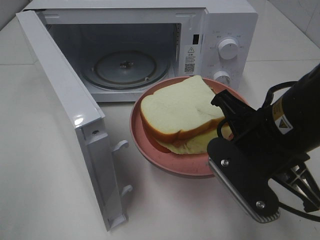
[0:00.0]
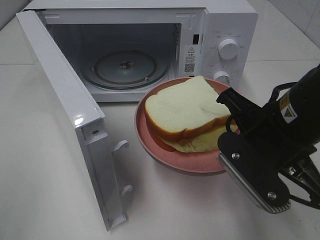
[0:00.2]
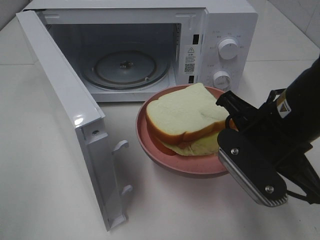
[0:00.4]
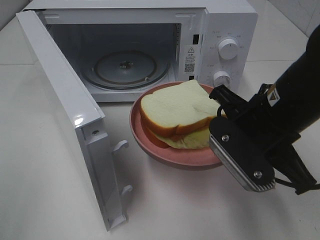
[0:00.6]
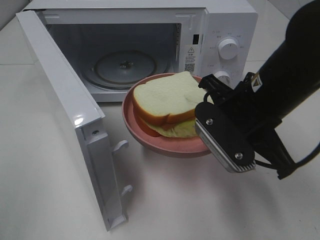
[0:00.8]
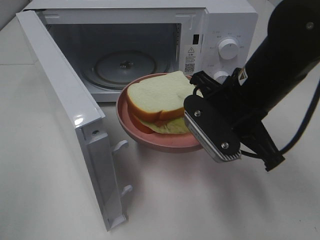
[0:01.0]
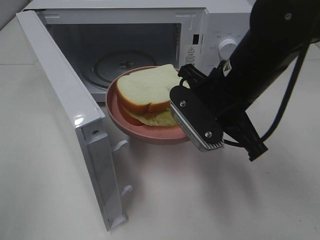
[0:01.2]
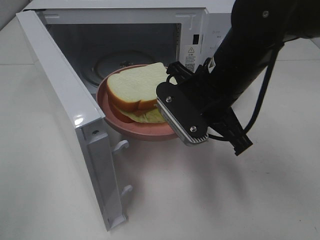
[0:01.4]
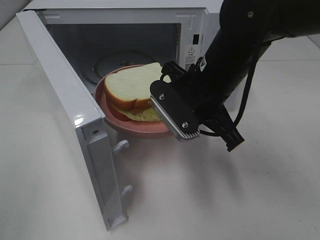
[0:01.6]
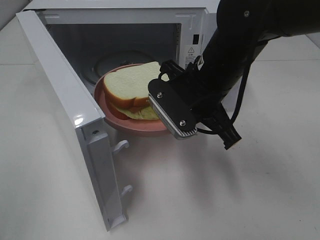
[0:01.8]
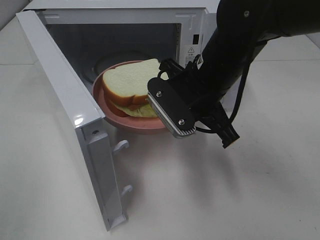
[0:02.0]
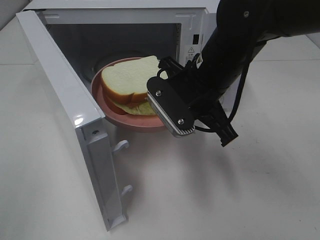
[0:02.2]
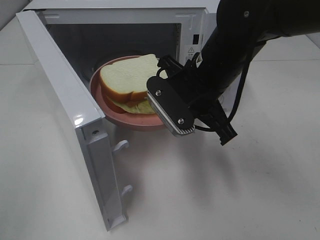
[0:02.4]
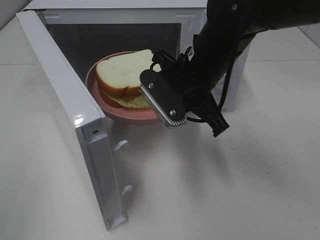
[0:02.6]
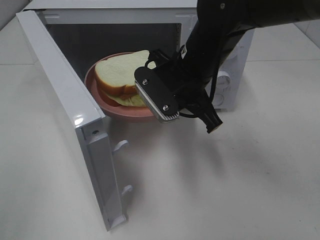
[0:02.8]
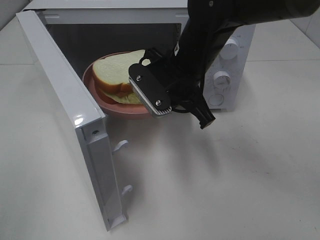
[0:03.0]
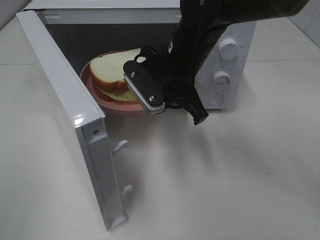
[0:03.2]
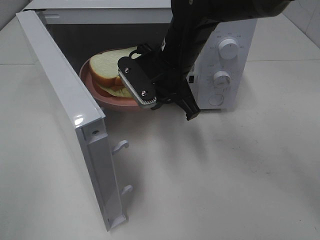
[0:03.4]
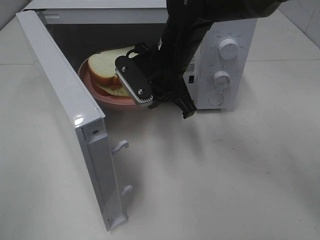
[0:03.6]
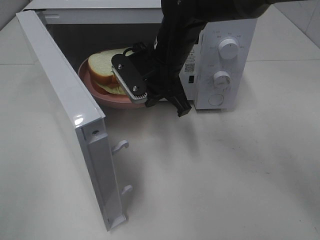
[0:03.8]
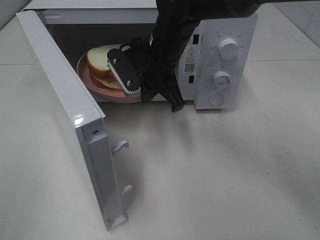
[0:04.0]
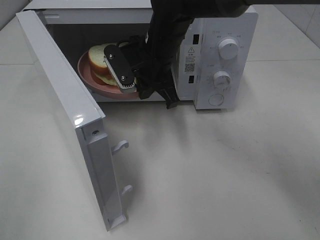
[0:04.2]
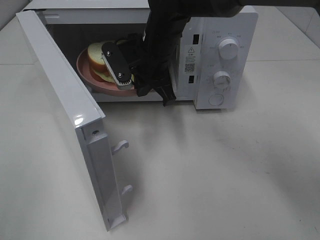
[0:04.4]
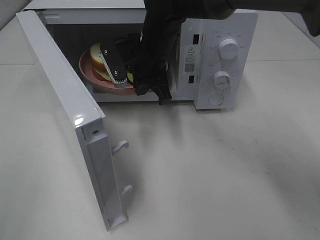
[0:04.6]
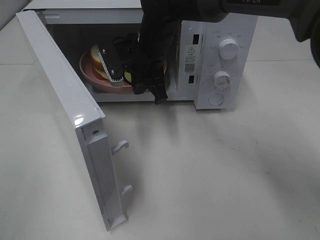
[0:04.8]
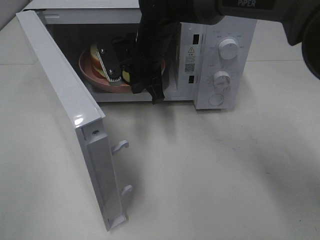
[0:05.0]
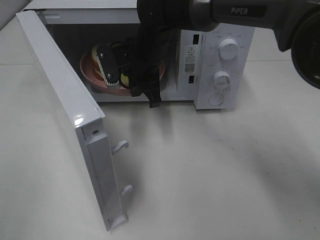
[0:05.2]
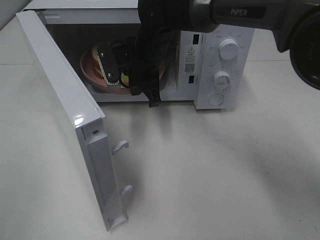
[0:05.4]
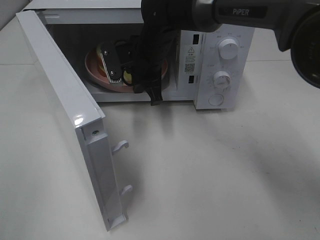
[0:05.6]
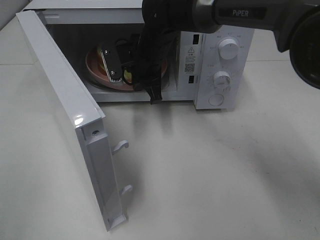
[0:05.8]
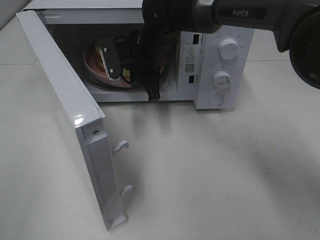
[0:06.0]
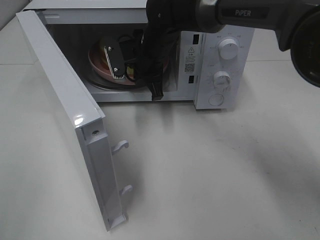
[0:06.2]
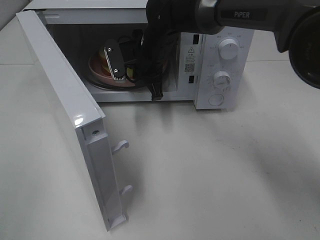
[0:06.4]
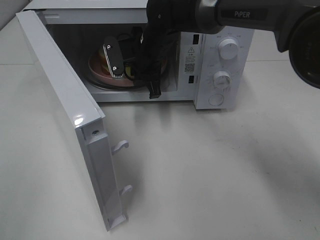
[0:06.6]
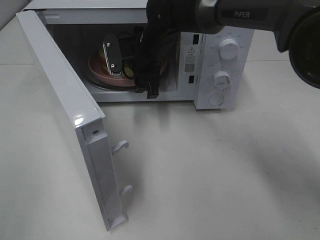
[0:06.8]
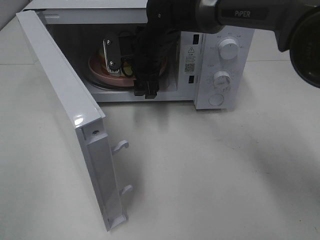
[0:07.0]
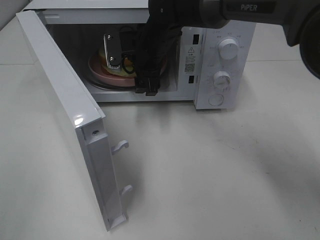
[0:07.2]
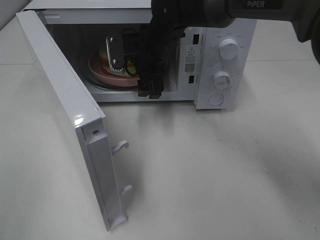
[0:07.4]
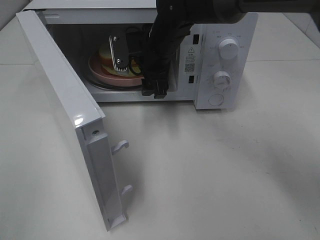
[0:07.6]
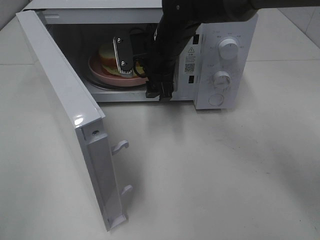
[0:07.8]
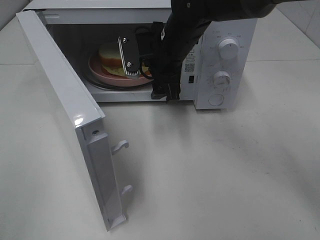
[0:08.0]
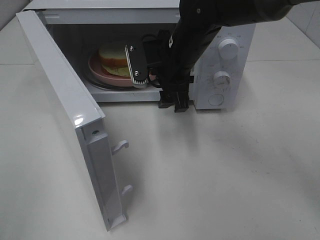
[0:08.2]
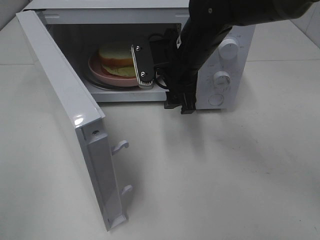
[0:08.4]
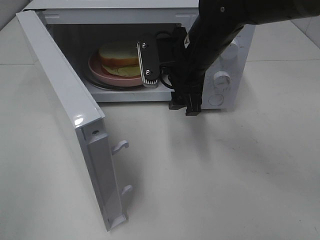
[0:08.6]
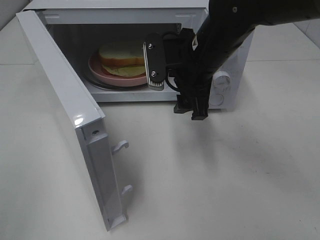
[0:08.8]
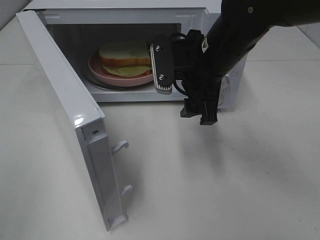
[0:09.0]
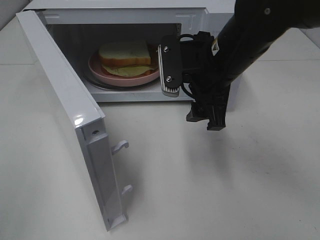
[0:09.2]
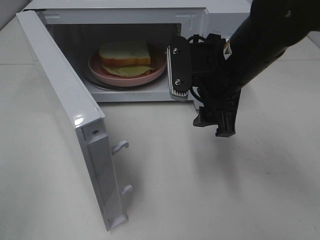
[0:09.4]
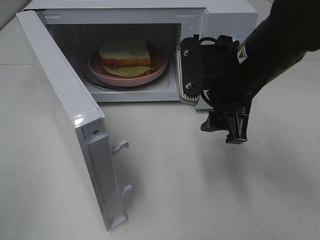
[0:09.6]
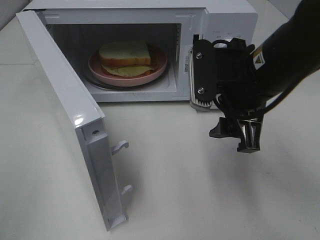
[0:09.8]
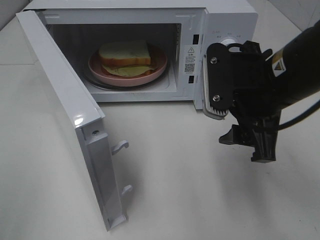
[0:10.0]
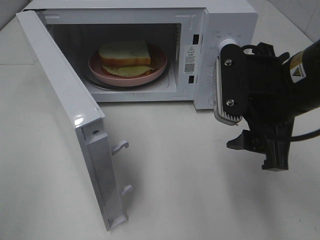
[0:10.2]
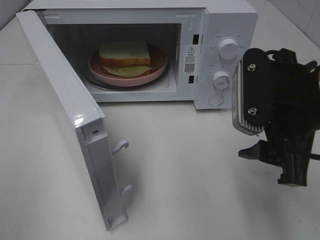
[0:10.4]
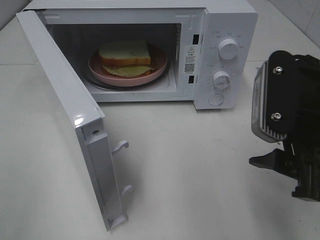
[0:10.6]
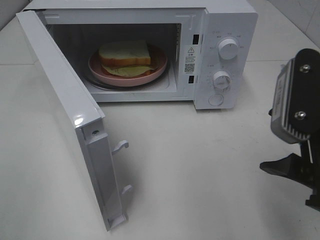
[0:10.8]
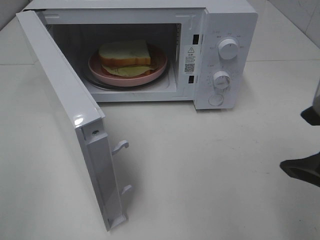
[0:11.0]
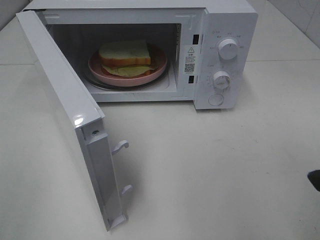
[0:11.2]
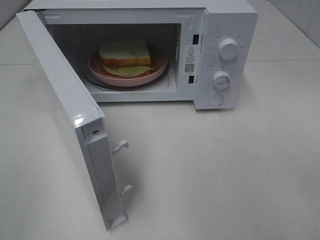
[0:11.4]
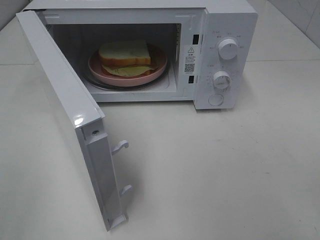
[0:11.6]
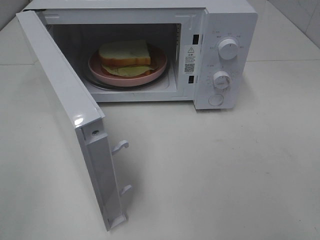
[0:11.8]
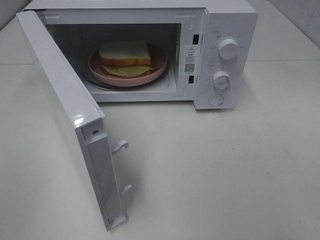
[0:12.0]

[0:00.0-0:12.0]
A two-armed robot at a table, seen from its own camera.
Task of the whole recording: Heat Sandwich.
Step, 0:00.0 to 0:08.0: Right hand: place the plate in the microwave.
0:00.0 to 0:01.6: The right gripper heads forward and to the left, covering approximately 10 cm.
0:01.6 to 0:03.0: The right gripper changes place by about 5 cm.
0:03.0 to 0:04.4: The right gripper heads forward, covering some 5 cm.
0:04.4 to 0:06.0: The grippers stay close to where they were, moving slightly.
0:06.0 to 0:07.6: The right gripper opens.
0:07.6 to 0:09.0: The right gripper heads backward and to the right, covering some 15 cm.
0:09.0 to 0:10.4: The right gripper shifts about 15 cm backward and to the right.
0:10.4 to 0:12.0: The right gripper goes some 20 cm backward and to the right.

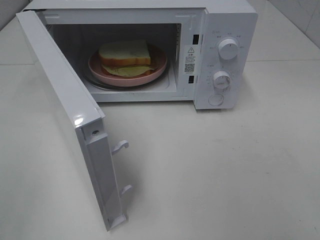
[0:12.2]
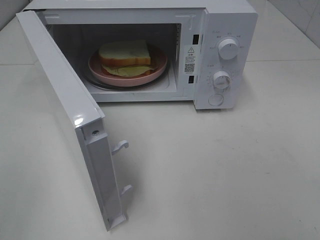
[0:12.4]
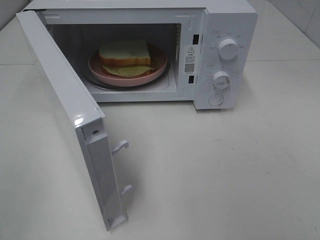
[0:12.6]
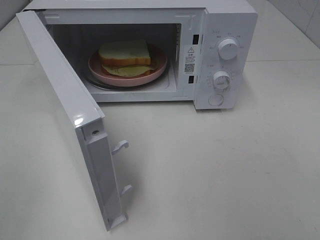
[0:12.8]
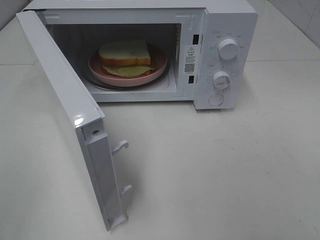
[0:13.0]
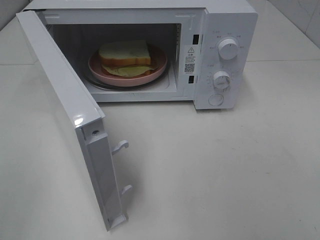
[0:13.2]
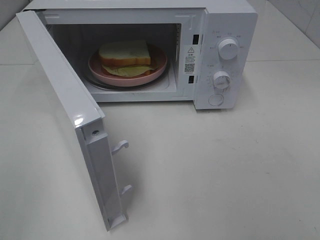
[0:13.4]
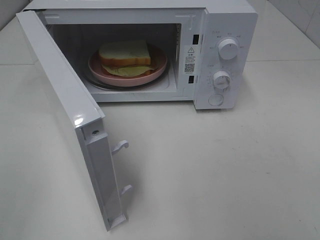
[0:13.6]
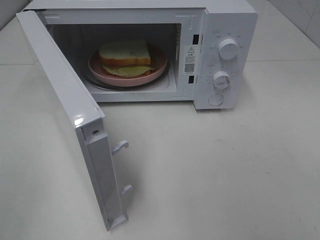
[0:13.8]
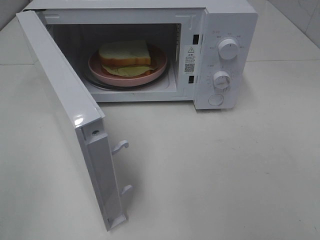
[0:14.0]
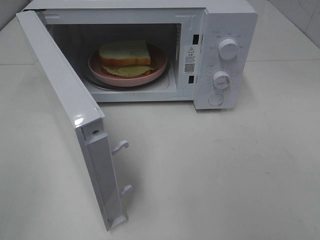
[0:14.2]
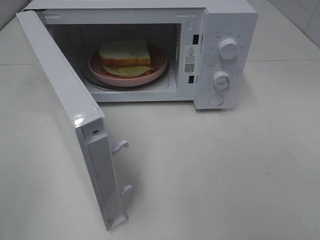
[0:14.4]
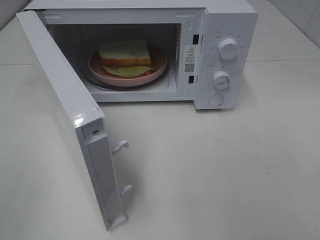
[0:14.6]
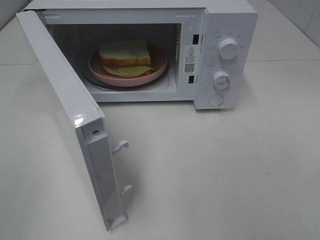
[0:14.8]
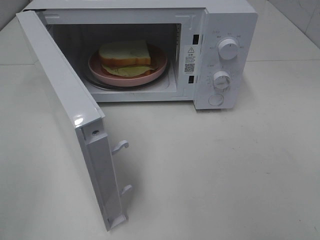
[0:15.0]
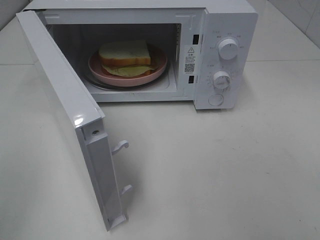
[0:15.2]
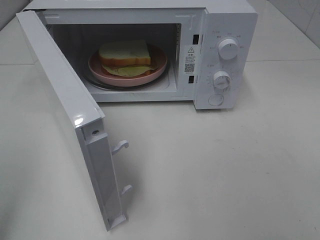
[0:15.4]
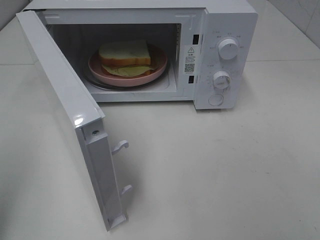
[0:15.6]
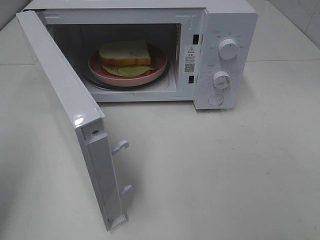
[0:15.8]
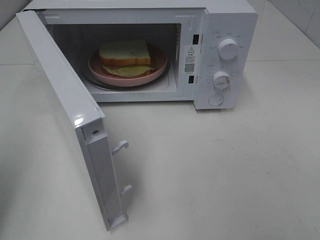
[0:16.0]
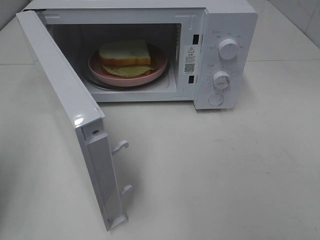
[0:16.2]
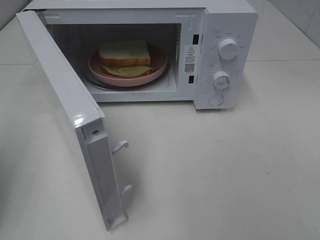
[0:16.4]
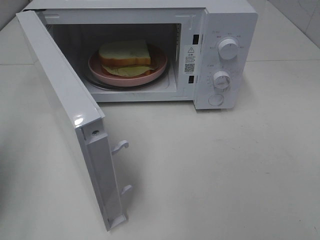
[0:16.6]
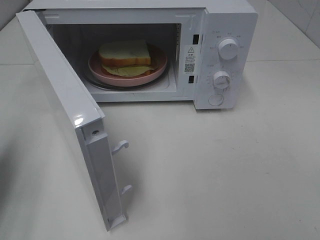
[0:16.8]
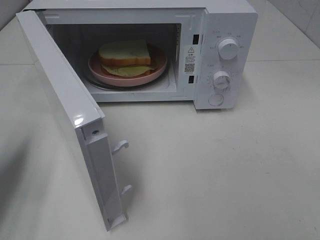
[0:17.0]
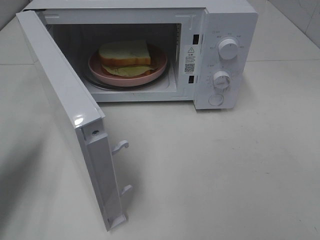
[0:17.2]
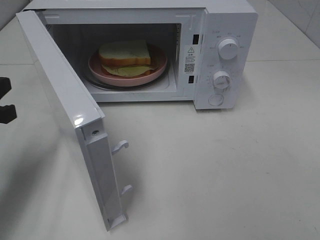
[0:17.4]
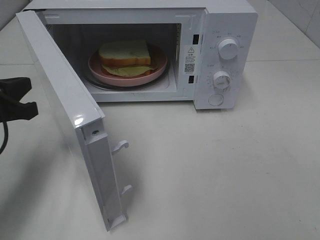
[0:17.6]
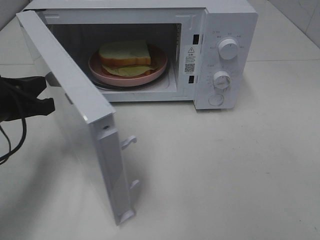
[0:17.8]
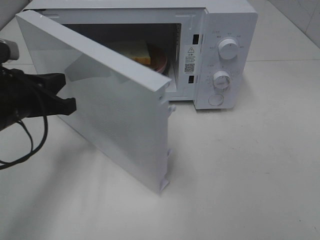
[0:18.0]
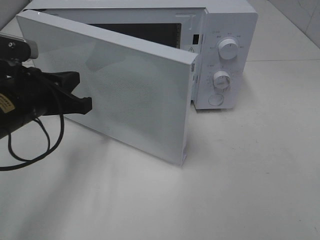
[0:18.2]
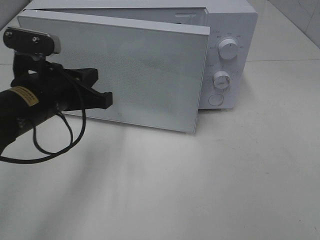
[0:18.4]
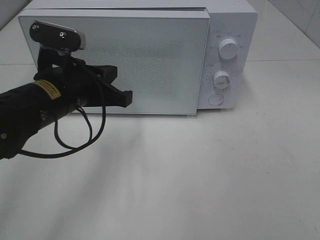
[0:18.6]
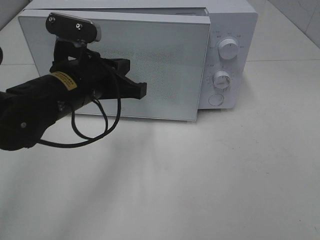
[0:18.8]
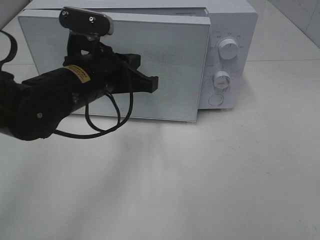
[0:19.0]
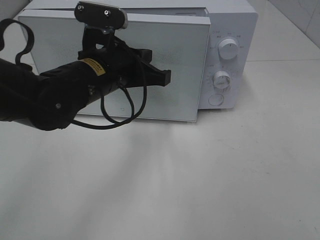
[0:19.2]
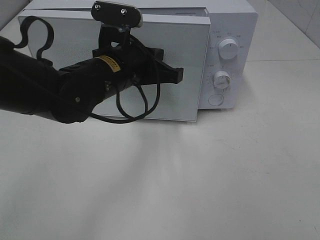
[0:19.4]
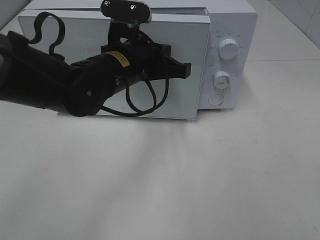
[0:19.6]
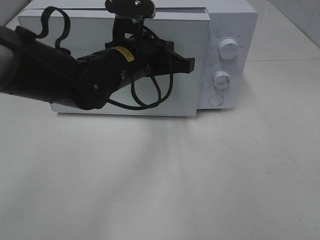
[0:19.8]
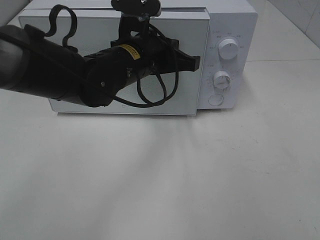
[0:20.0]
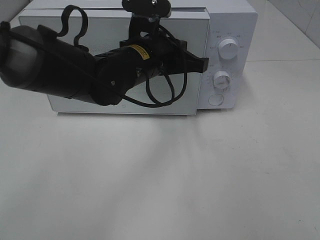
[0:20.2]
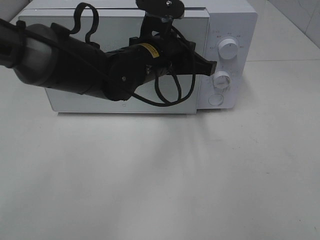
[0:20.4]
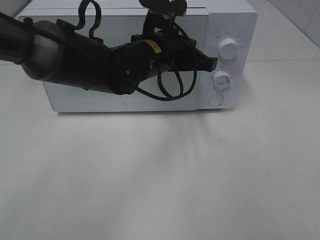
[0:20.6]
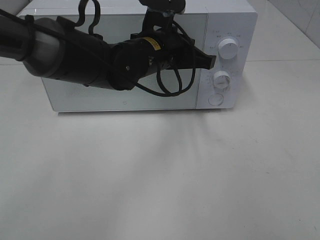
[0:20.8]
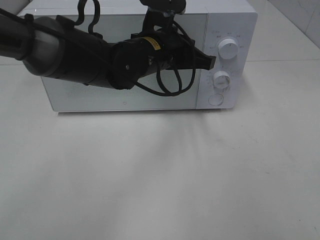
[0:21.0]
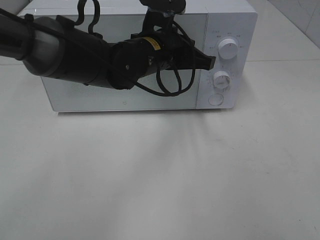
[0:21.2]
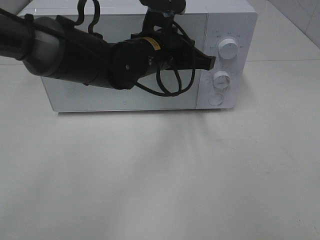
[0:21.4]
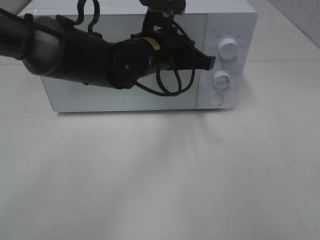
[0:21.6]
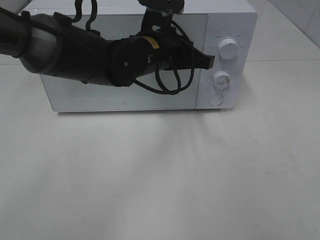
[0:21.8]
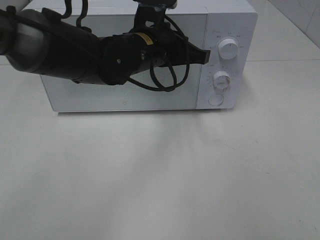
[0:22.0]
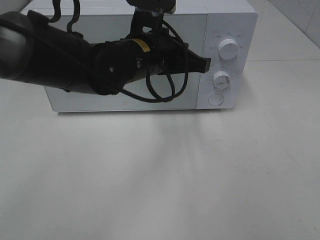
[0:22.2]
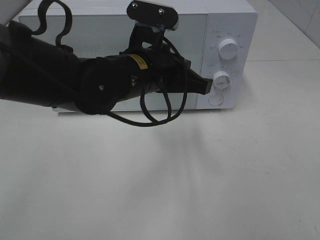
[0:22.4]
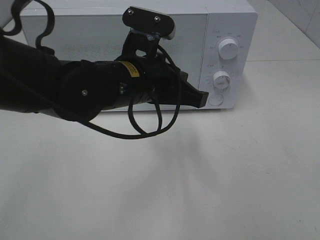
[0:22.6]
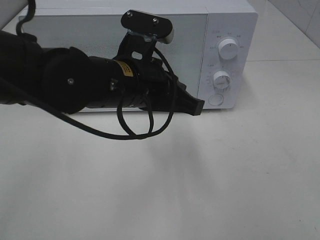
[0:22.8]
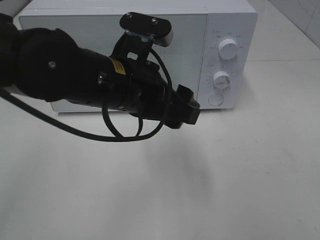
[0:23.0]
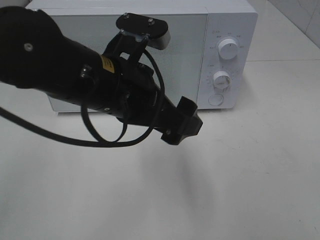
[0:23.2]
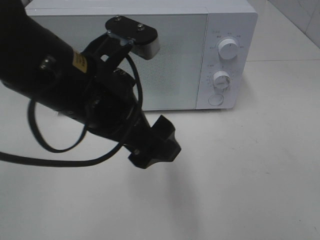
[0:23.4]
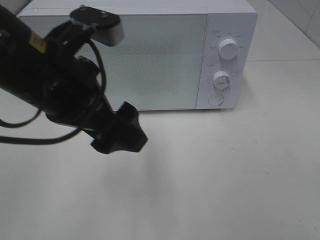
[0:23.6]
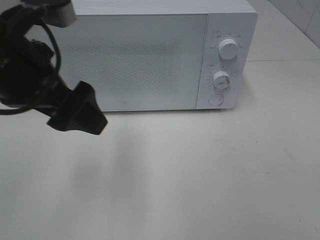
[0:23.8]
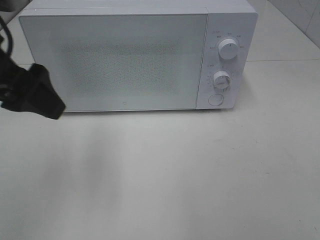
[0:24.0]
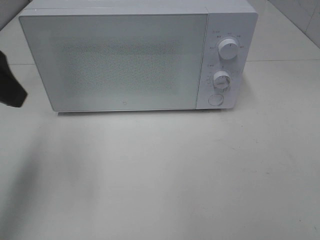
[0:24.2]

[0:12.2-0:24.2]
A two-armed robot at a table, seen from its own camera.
Task of the whole recording: Heat Sandwich.
Step, 0:12.2 to 0:22.2: Left hand: close the microwave door.
0:15.2 to 0:16.6: The left gripper is displaced forward and downward by some 15 cm, and closes its fingers.
0:16.6 to 0:18.2: The left gripper travels to the right and forward by approximately 20 cm.
0:18.2 to 0:19.8: The left gripper goes about 15 cm to the right and forward.
0:19.8 to 0:21.2: There are only small adjustments of the grippers.
0:21.2 to 0:22.6: The left gripper is displaced backward by roughly 10 cm.
0:22.6 to 0:24.2: The left gripper travels to the left and upward by roughly 25 cm, and opens.
